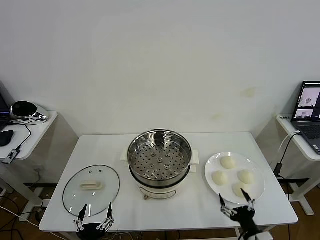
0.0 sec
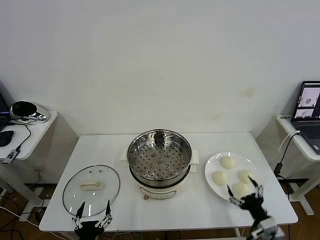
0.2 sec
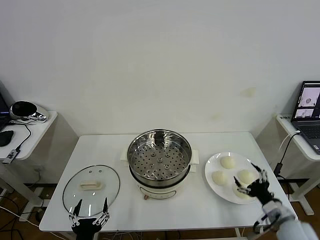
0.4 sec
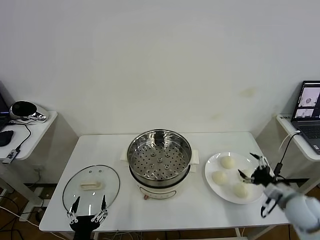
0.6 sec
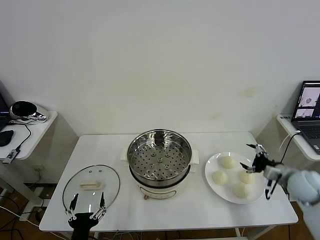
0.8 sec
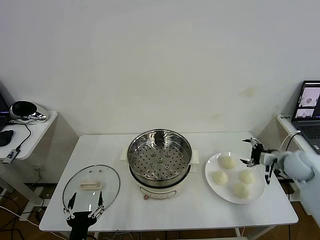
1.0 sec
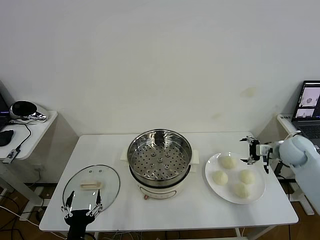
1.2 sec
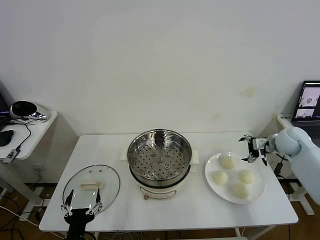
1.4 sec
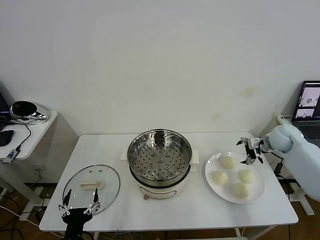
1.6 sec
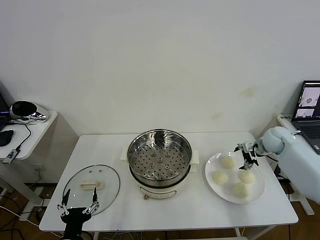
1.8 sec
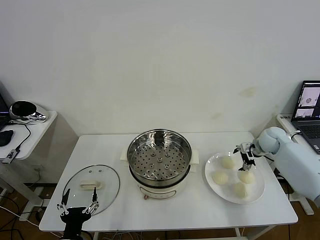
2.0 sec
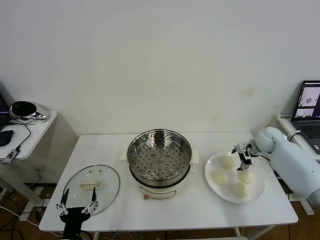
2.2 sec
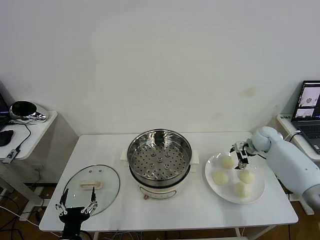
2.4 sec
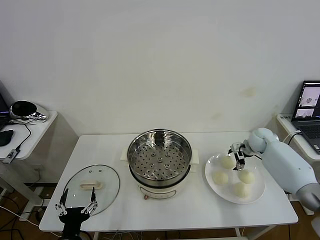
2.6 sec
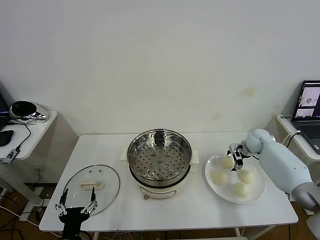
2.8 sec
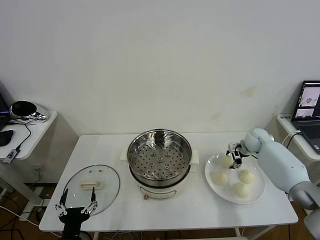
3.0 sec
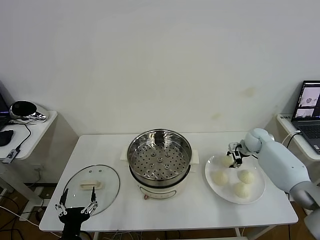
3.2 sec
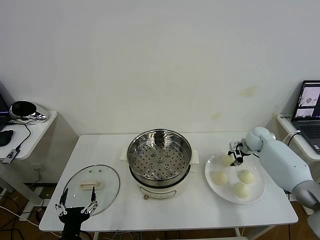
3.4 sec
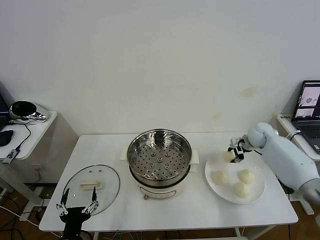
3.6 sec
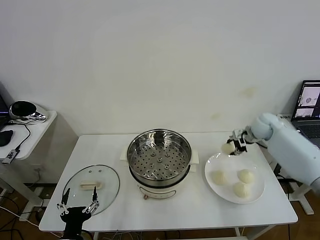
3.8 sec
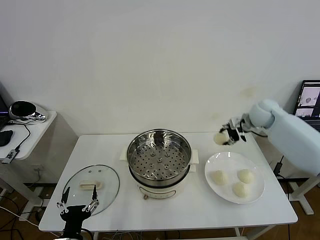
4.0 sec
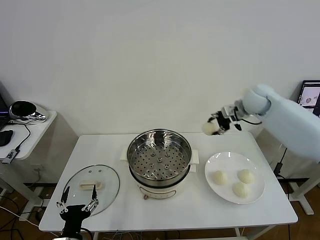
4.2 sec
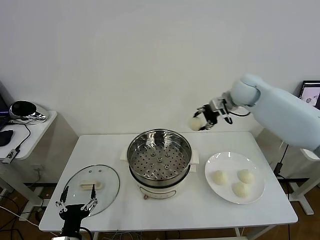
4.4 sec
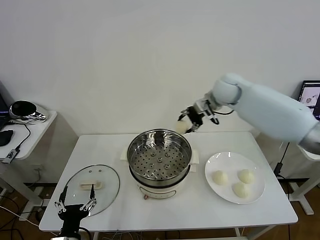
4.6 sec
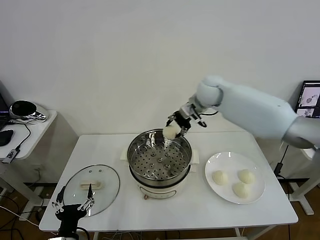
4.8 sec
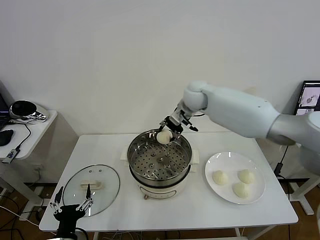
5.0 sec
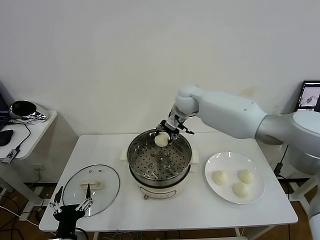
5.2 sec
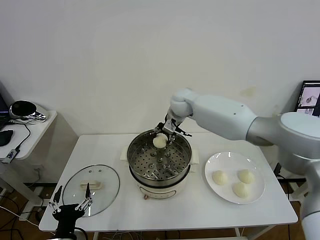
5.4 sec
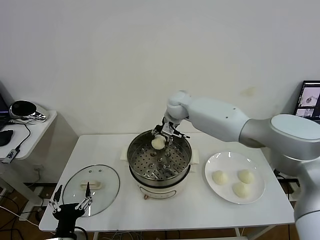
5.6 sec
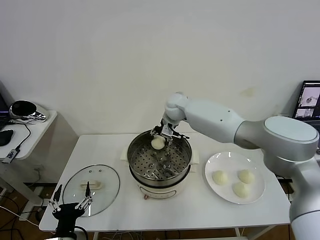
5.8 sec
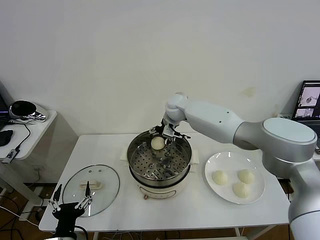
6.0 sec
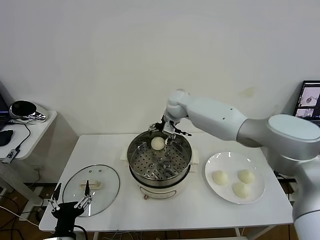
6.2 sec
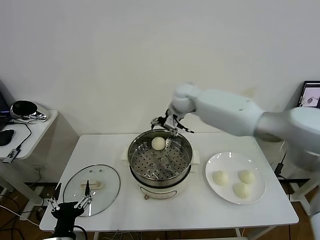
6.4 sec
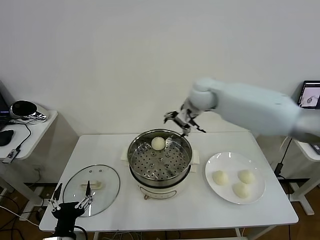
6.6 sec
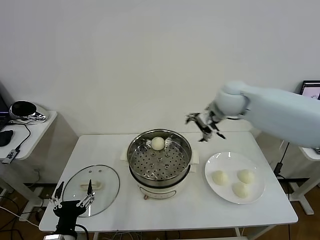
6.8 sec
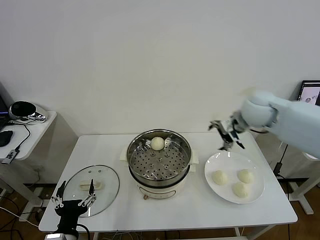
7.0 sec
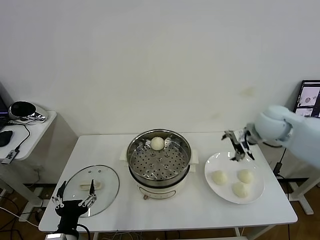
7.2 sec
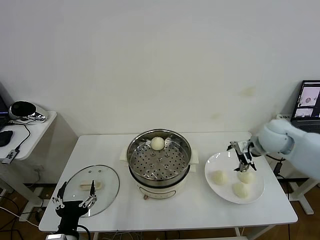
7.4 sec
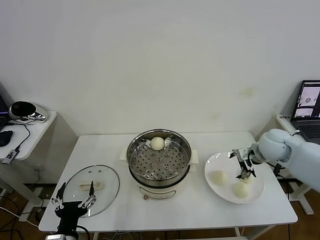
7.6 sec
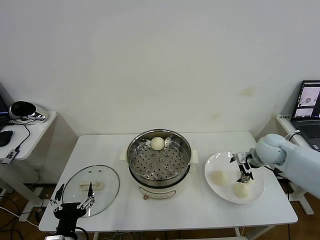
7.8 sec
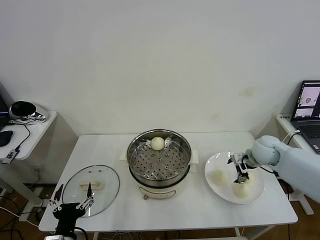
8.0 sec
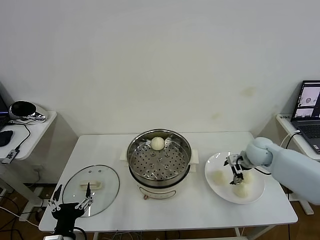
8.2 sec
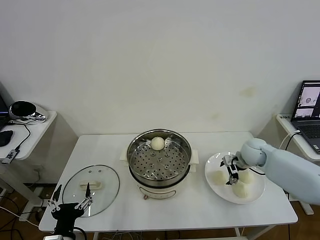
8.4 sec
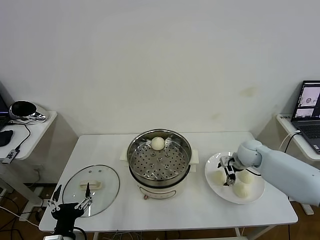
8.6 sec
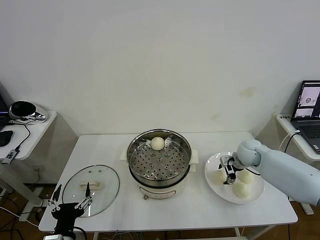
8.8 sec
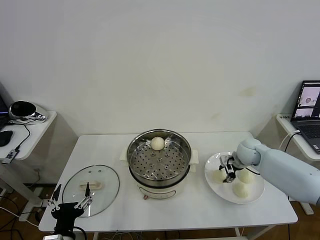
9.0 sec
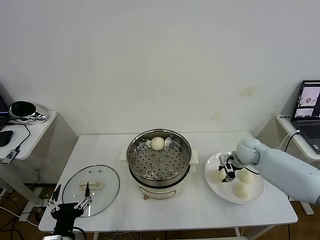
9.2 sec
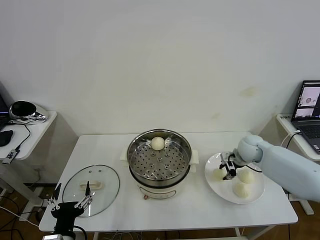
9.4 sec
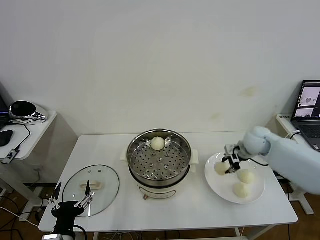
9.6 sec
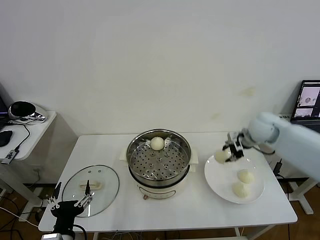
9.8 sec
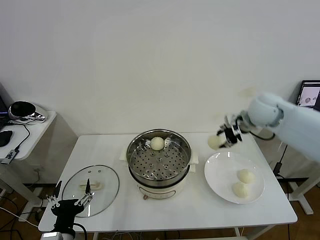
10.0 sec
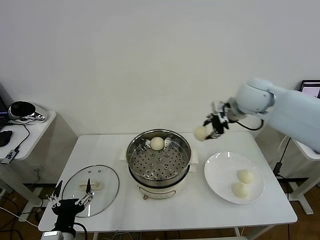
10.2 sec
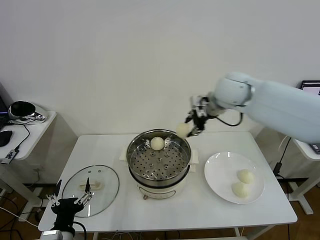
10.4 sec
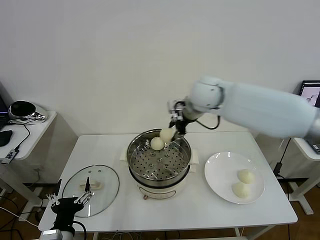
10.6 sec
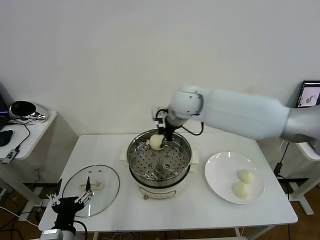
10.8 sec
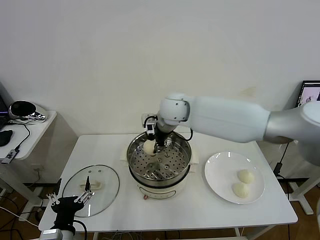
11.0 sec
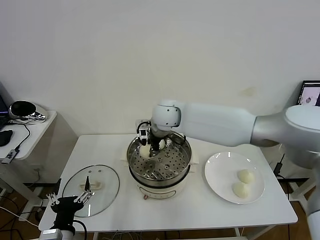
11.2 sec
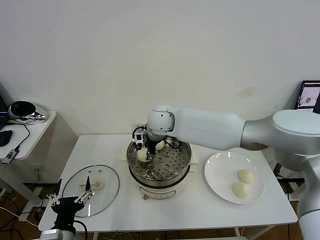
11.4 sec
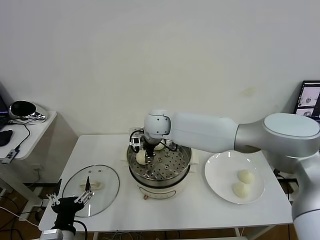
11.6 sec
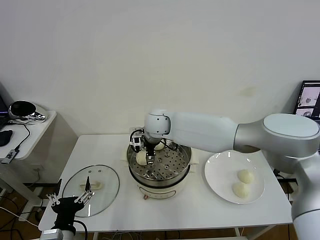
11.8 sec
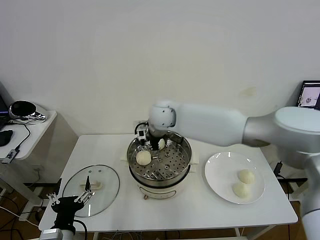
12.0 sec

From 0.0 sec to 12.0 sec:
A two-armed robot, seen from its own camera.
Task of the whole recording: take steamed baozi put them in steamer then cover it.
Step, from 0.0 sec to 3.0 sec: Grasp the baozi in the plate with right gripper.
Step, from 3.2 sec to 6.0 sec: Place the baozi on the steamer with right gripper.
Step, from 6.2 sec to 9.0 sec: Grasp the baozi in the plate with right gripper.
Step, from 9.2 sec to 11.8 sec: Place the baozi on the steamer with right gripper.
From 1.6 sec to 3.0 sec: The right gripper travels downward by some 5 cm, and closes up.
From 3.0 sec to 4.4 sec: The right gripper moves upward and to the left, about 30 cm.
From 4.4 sec to 6.0 sec: The right gripper is displaced to the left and downward by approximately 20 cm, and opens up.
From 6.0 sec to 7.6 sec: The right gripper travels to the right and backward by some 35 cm.
From 7.6 sec to 9.0 sec: The right gripper is displaced downward by roughly 10 cm, and closes up.
From 9.0 sec to 10.4 sec: The right gripper heads upward and to the left, covering approximately 30 cm.
From 10.4 sec to 12.0 sec: The right gripper shifts some 15 cm to the left and downward, and opens its fingers.

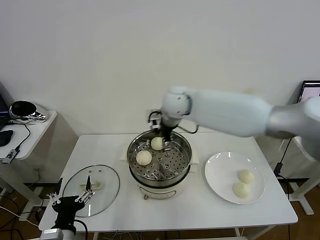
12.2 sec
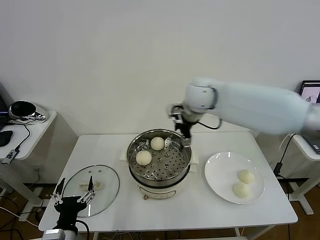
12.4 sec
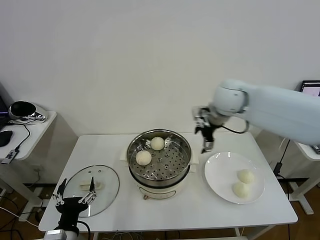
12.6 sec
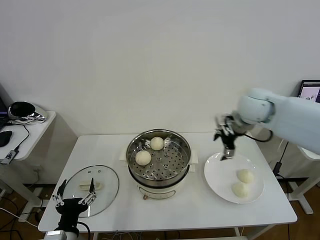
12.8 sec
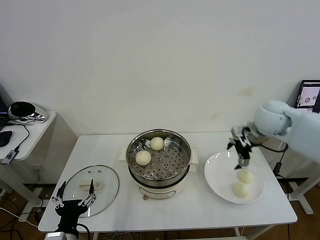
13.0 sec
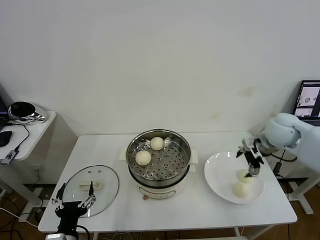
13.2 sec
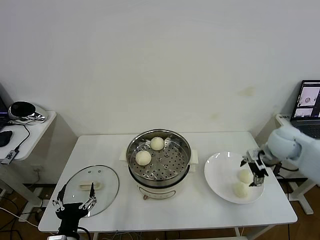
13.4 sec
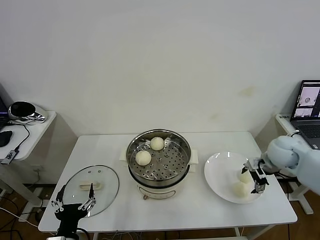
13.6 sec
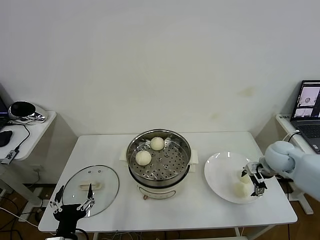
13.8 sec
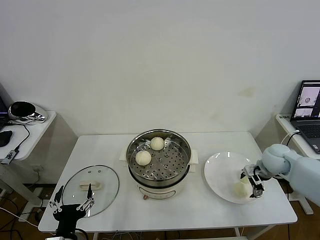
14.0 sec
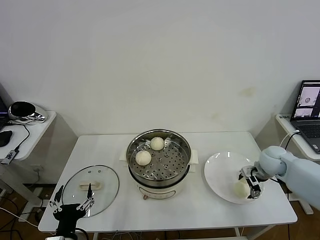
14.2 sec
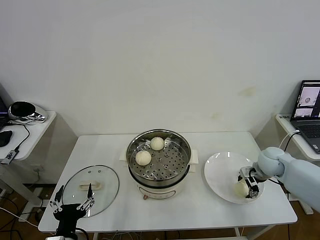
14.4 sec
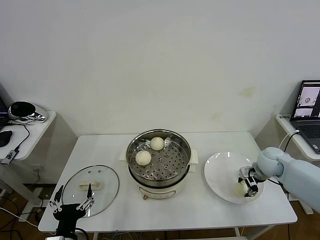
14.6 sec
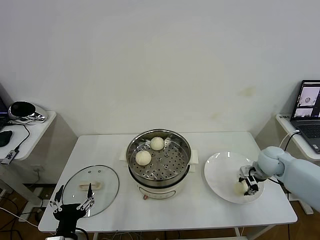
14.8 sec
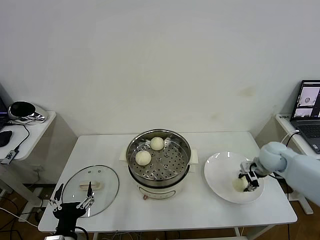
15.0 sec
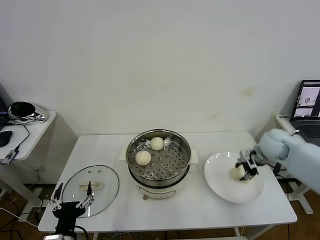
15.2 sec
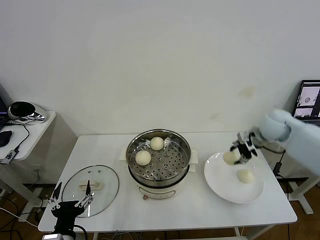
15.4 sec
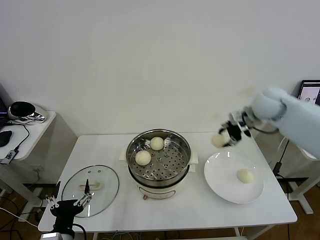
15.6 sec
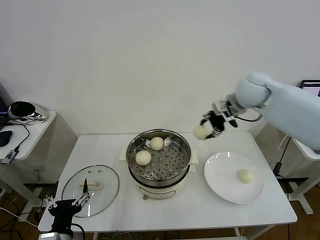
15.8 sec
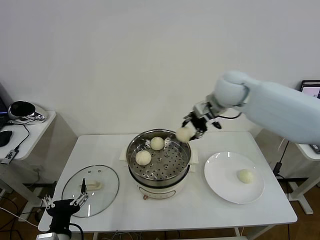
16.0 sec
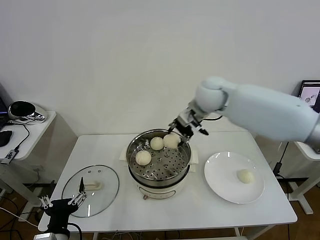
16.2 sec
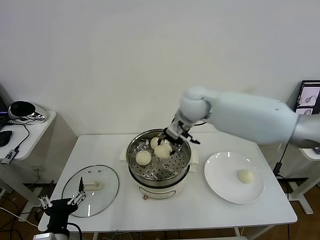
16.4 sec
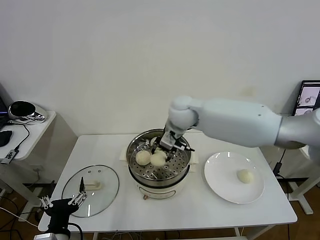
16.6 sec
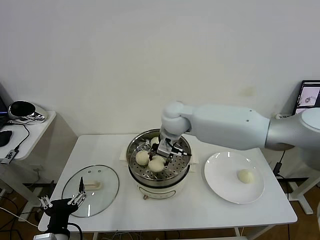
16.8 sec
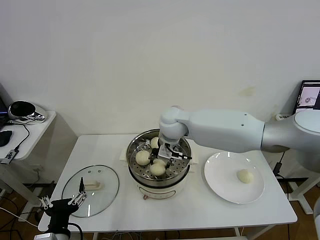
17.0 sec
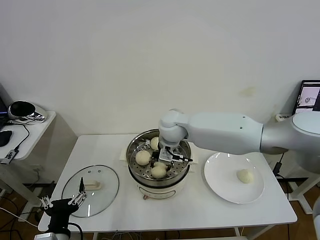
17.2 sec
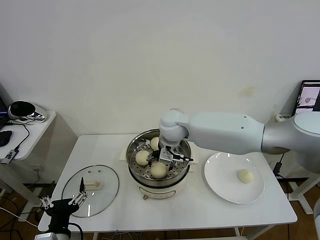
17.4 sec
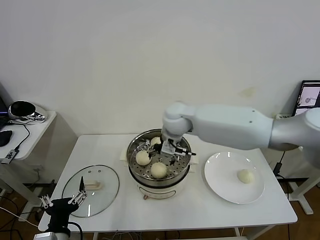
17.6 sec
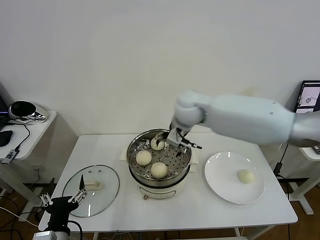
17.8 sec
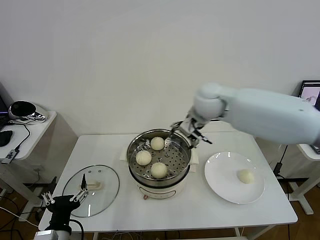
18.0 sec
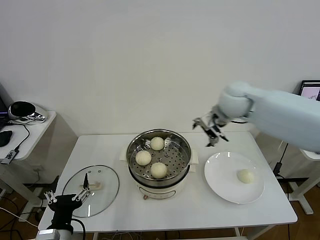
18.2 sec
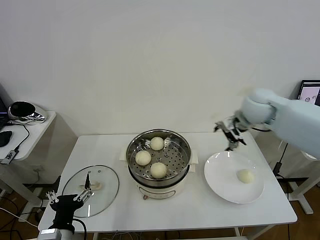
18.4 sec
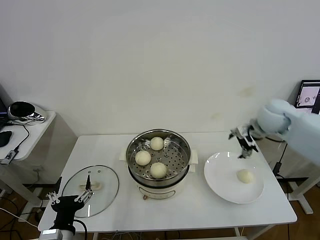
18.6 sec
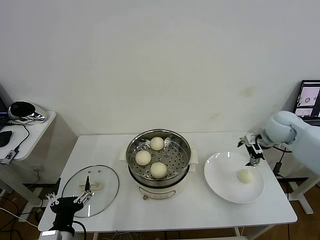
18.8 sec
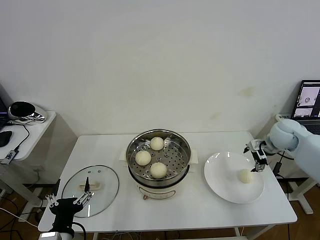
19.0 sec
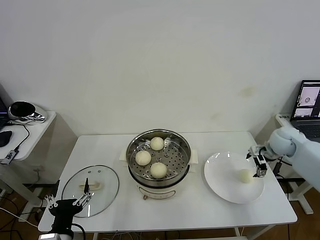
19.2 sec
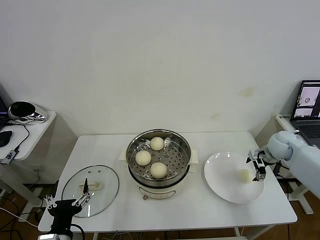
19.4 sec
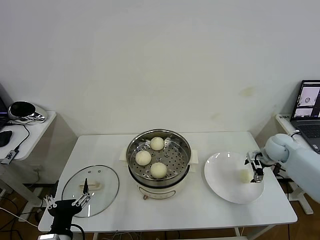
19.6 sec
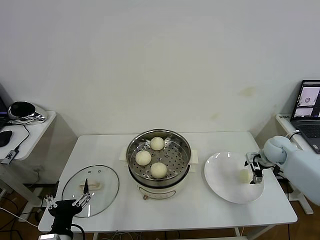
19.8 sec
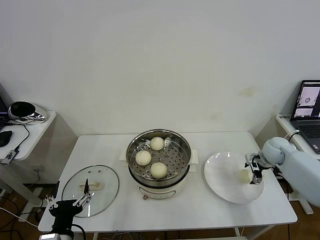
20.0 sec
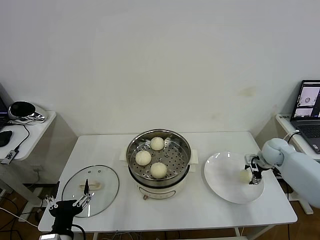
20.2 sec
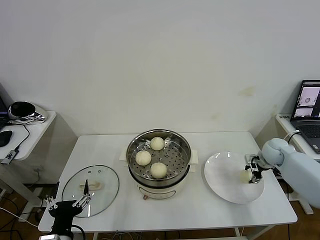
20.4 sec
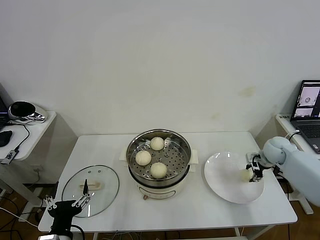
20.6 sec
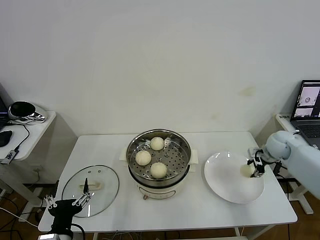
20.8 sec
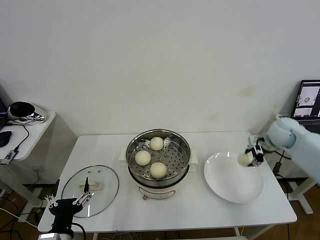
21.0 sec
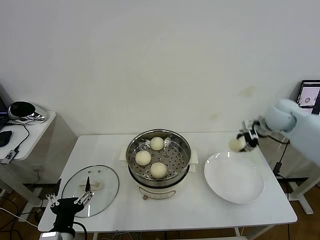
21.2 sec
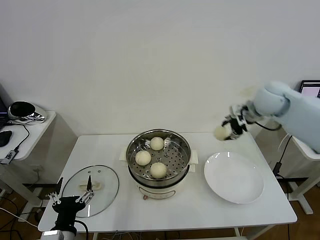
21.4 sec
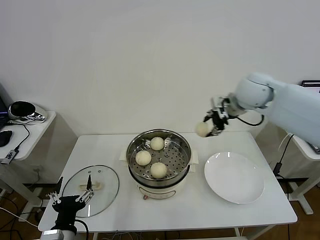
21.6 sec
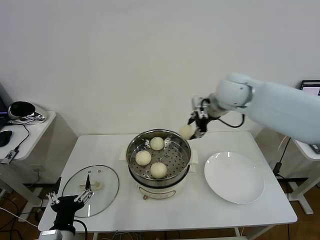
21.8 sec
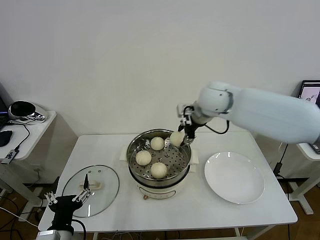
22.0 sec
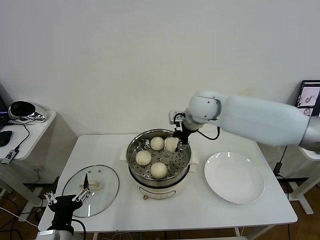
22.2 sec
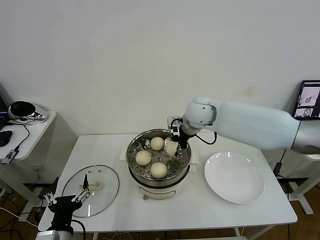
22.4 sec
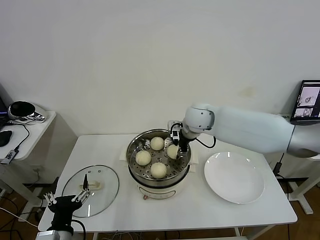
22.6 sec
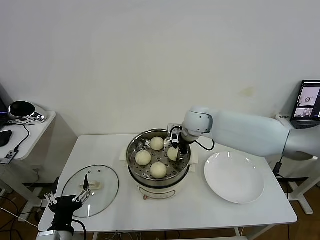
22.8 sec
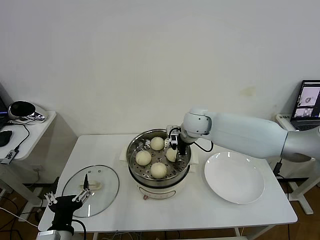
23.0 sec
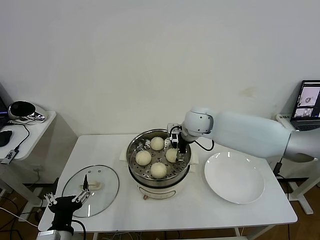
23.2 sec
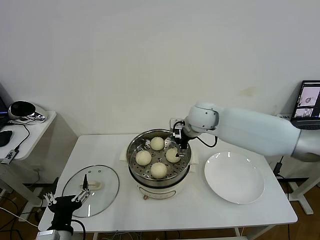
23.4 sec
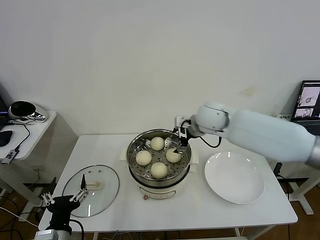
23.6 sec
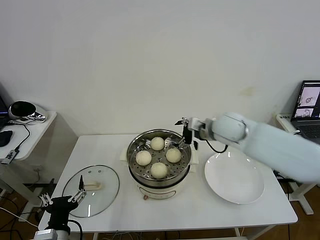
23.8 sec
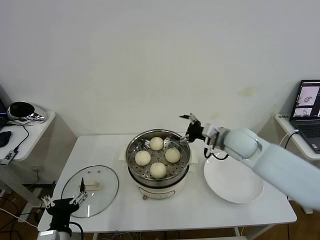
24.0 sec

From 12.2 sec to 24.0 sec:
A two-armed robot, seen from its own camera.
Task of the whole recording: take steamed baozi put them in steamer then cover it.
Step, from 12.2 sec to 14.8 sec: Grasp the baozi in the plate with right gripper.
Step, from 15.0 sec to 17.4 sec: Place the baozi on the steamer with right gripper.
Step, from 17.6 sec to 20.4 sec: Grasp the baozi in the plate with right gripper.
Step, from 20.6 sec to 23.0 sec: Place the baozi on the steamer with right gripper.
From 12.2 sec to 13.6 sec: The right gripper shifts about 35 cm to the right and downward.
From 13.6 sec to 15.2 sec: The right gripper moves approximately 5 cm, and closes its fingers.
From 15.2 sec to 16.6 sec: The right gripper shifts roughly 30 cm to the left.
From 16.6 sec to 18.2 sec: The right gripper heads to the right, covering some 20 cm, and opens up.
From 18.2 sec to 19.6 sec: The right gripper travels to the right and downward by roughly 30 cm.
From 19.6 sec to 21.0 sec: The right gripper travels upward by about 10 cm, and closes.
From 21.0 sec to 22.6 sec: The right gripper is displaced to the left by approximately 30 cm.
From 22.6 sec to 24.0 sec: The right gripper heads to the right and backward, covering some 15 cm, and opens its fingers.
